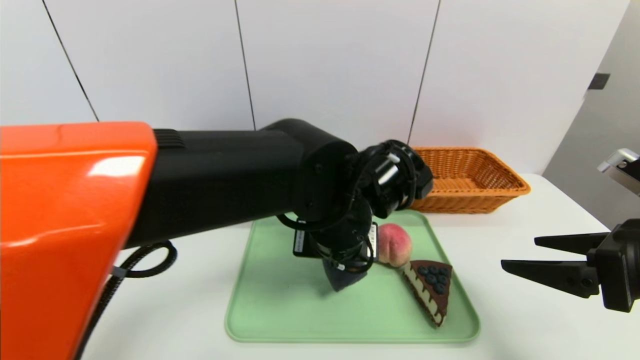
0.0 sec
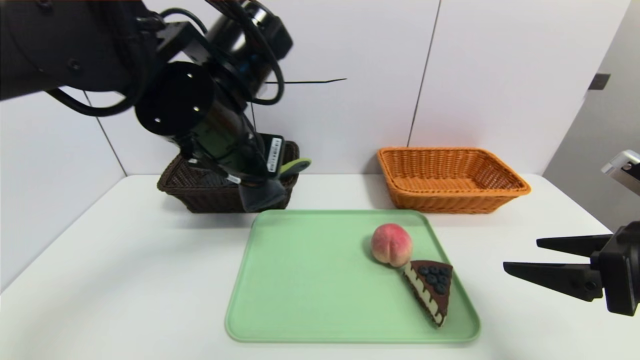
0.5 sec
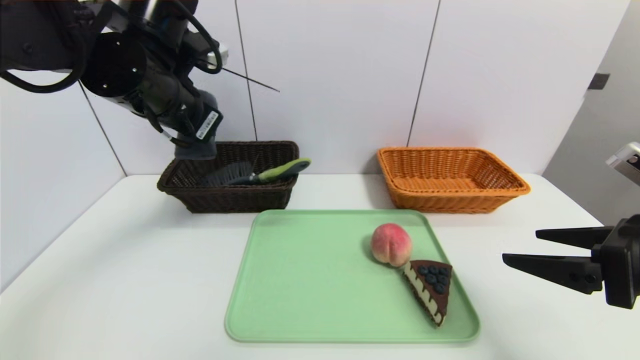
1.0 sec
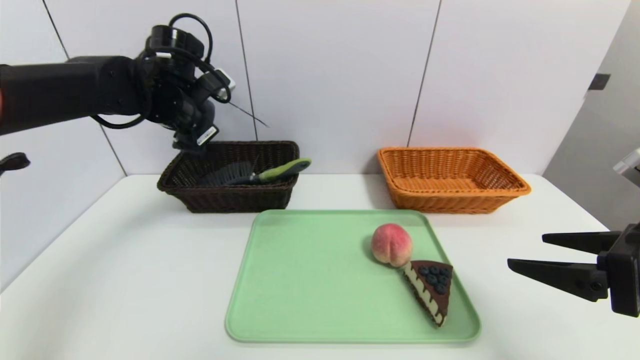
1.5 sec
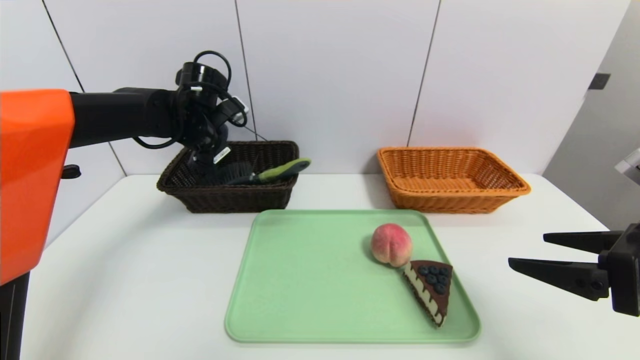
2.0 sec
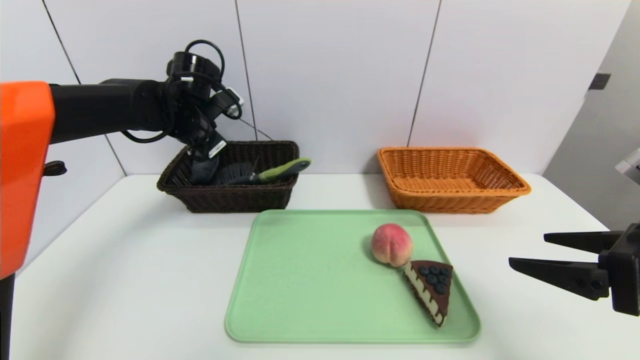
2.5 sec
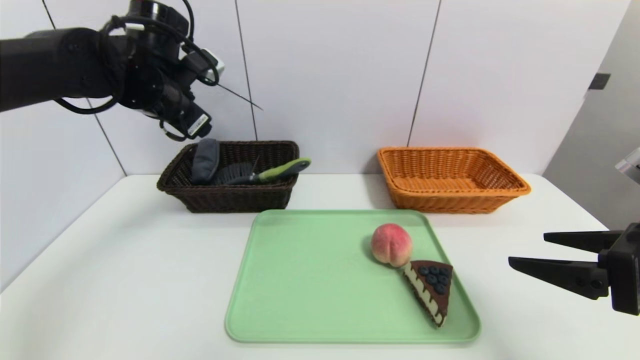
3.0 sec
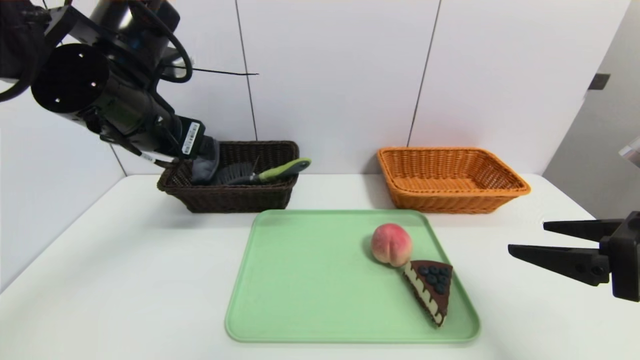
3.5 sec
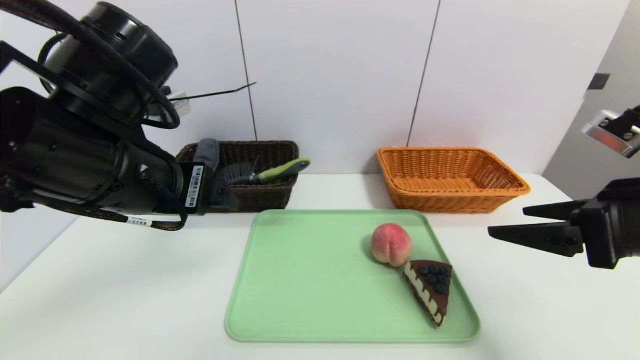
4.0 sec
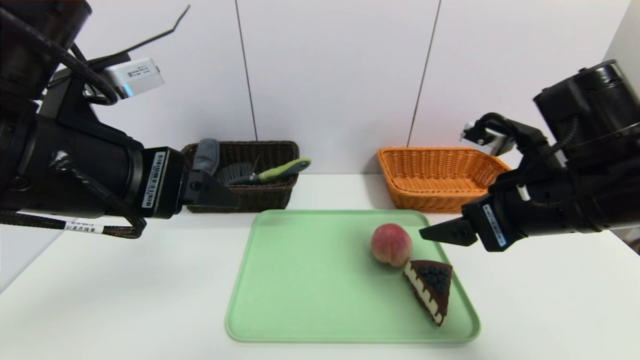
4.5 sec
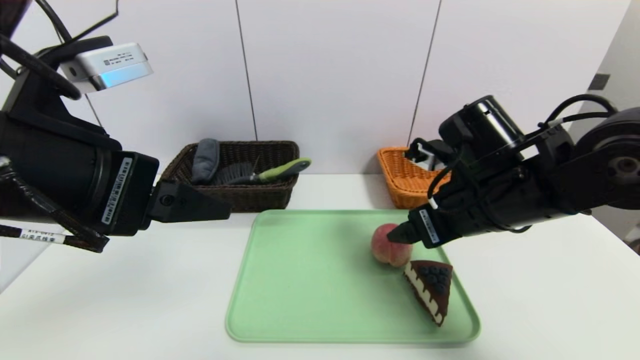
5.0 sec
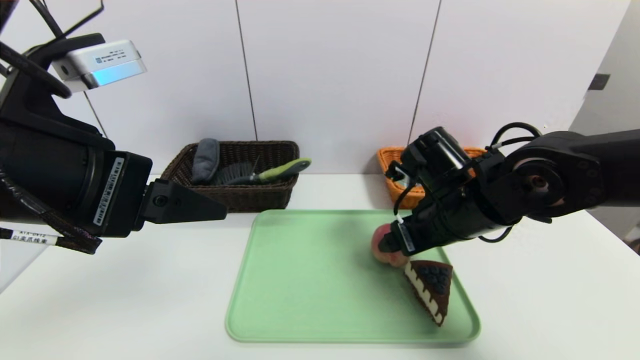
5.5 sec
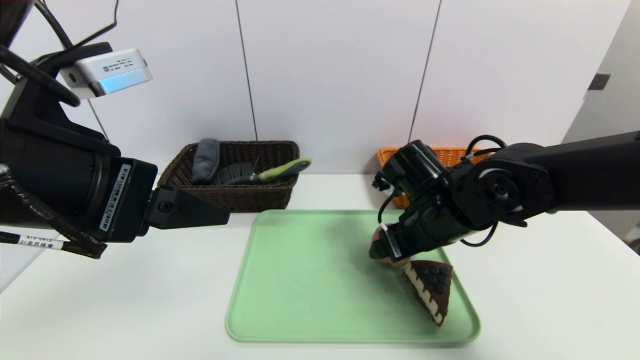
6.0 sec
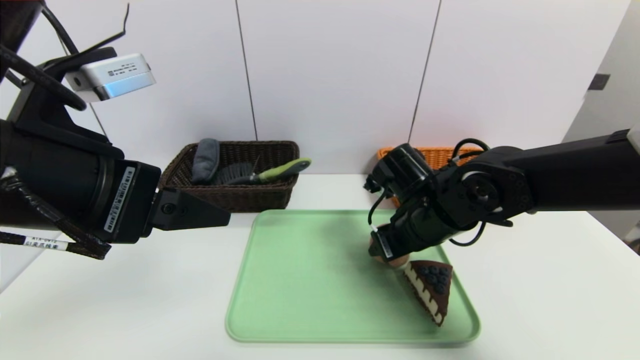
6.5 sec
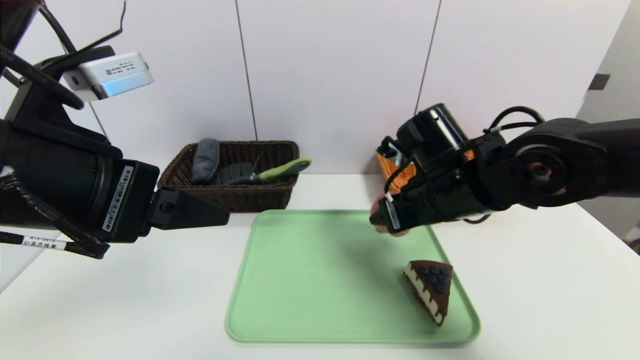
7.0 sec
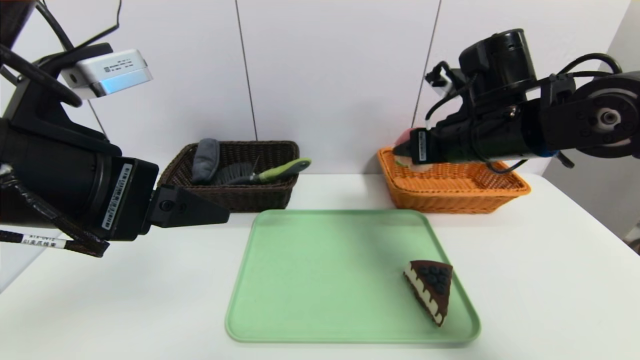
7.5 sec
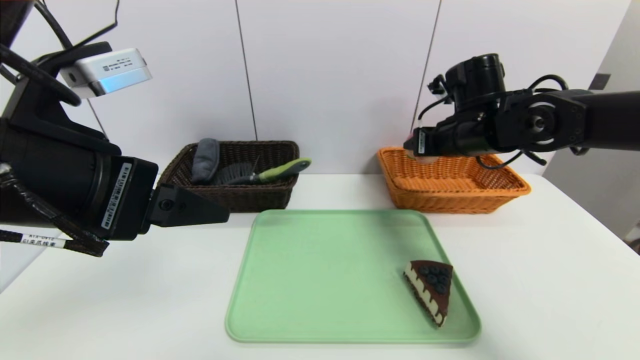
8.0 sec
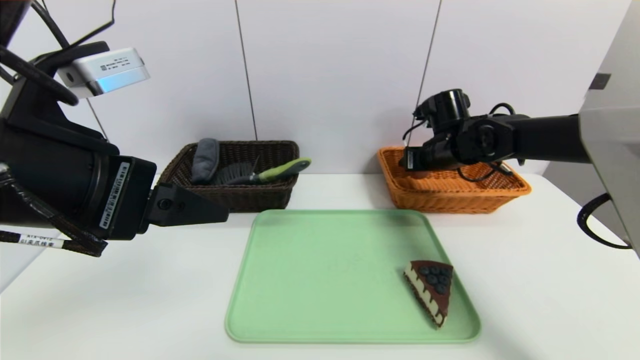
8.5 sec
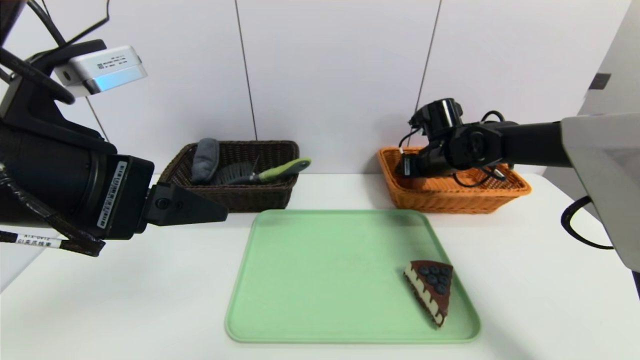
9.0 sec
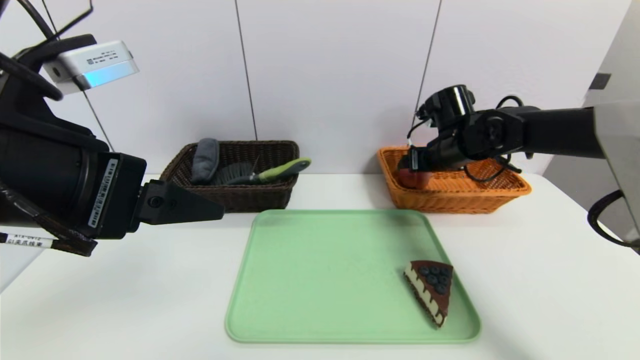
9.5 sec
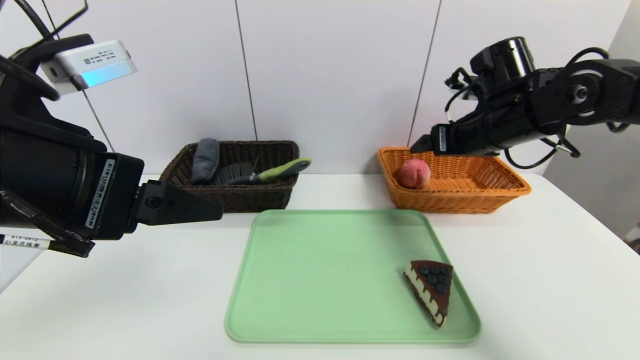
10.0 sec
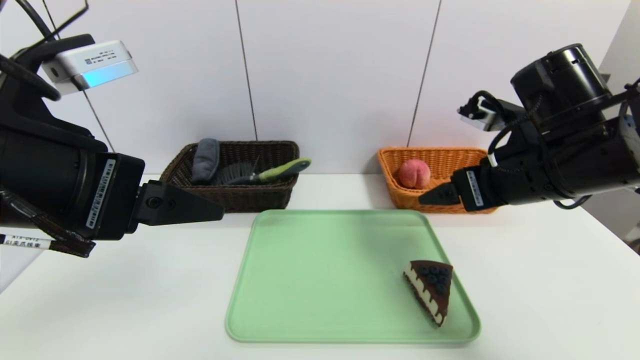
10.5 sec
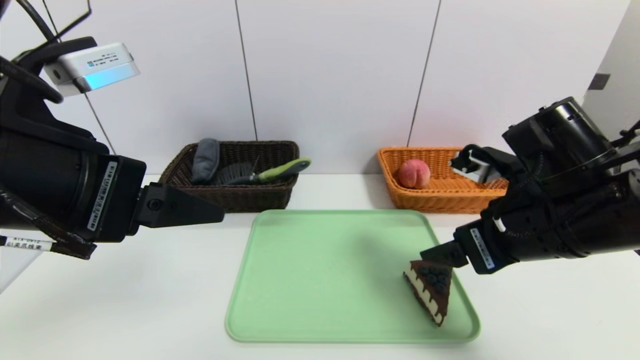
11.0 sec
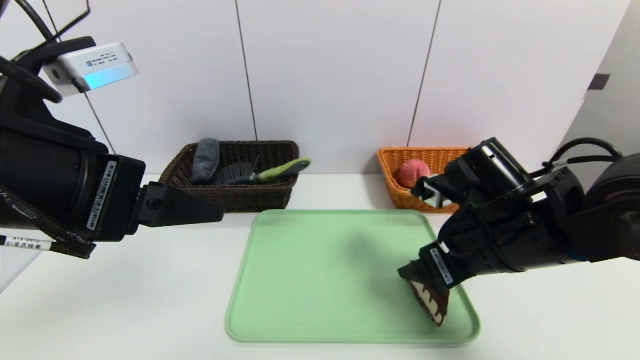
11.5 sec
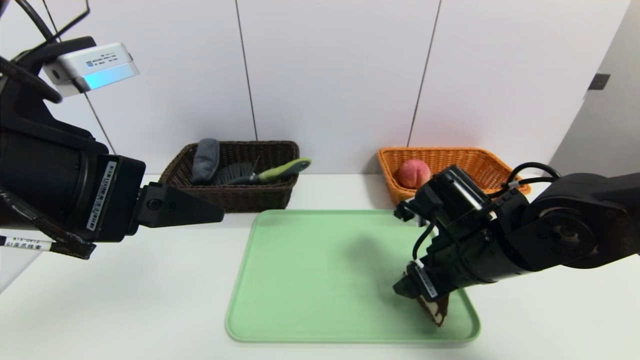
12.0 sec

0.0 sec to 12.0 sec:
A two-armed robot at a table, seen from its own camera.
Task of the whole recording: place the food in the right basket with the right gripper, and place the non food items in the left basket with the left gripper.
Step, 0.0 sec to 2.5 sec: Grasp the blue towel and put it in the left basket.
Step, 3.0 sec to 9.0 sec: Grasp the peach and put it in the right basket.
0.0 sec to 2.0 sec: The left gripper heads to the left and forward, covering approximately 30 cm.
2.0 sec to 4.0 sec: The left gripper travels backward by about 25 cm, and opens.
4.0 sec to 6.0 sec: The right gripper heads to the left, forward and downward, covering some 20 cm, while the left gripper changes place by some 5 cm.
6.0 sec to 8.0 sec: The right gripper is displaced forward, upward and to the right by about 15 cm, and closes.
8.0 sec to 10.0 sec: The right gripper opens its fingers.
10.0 sec to 12.0 sec: The right gripper moves downward, backward and to the left, about 15 cm.

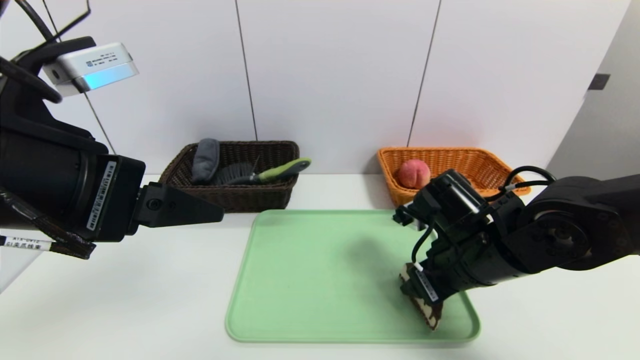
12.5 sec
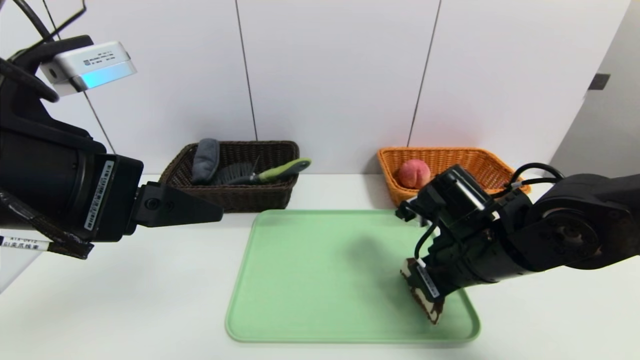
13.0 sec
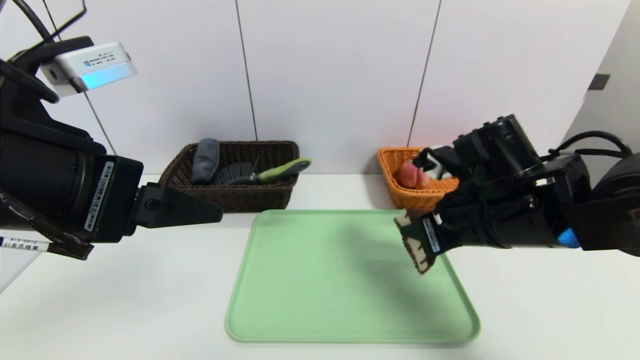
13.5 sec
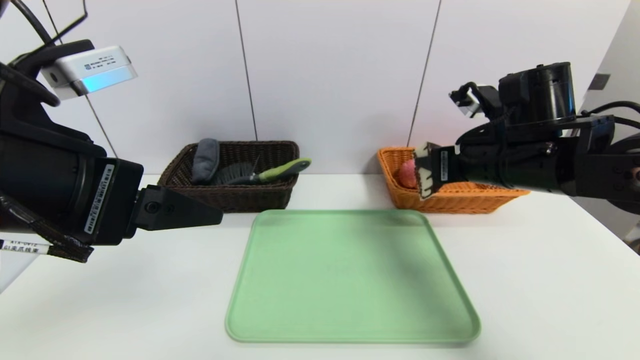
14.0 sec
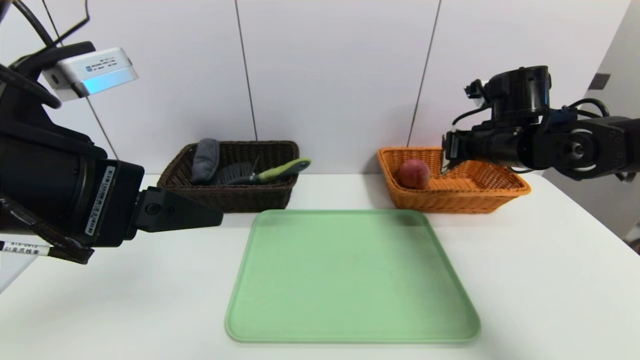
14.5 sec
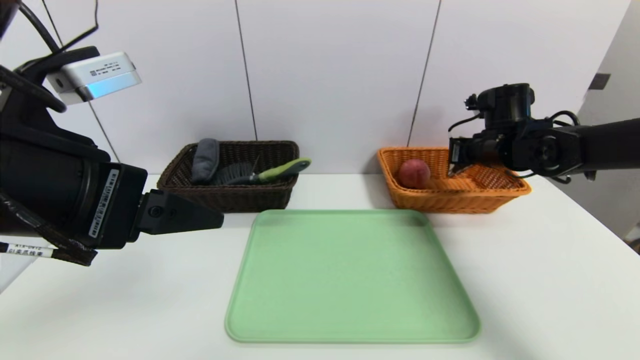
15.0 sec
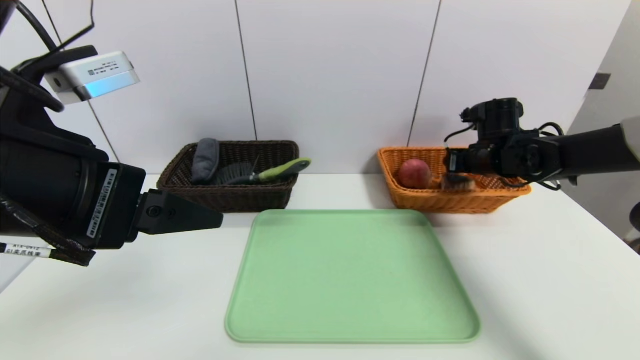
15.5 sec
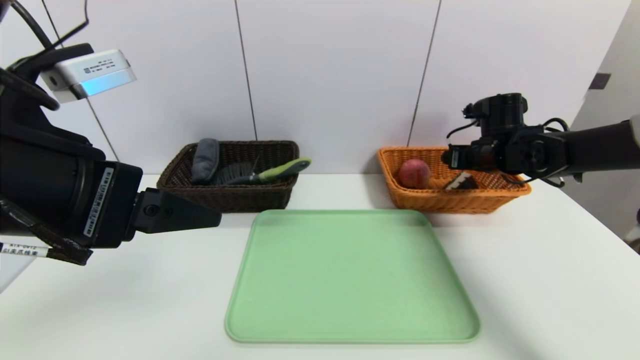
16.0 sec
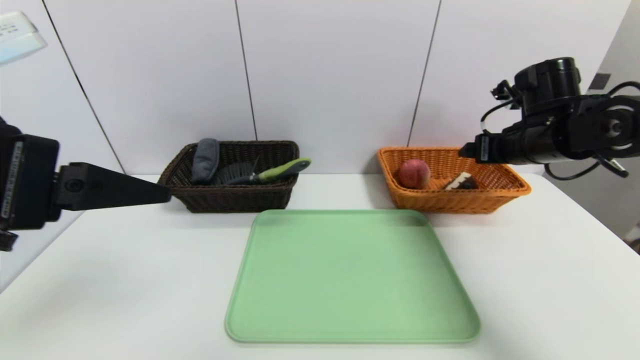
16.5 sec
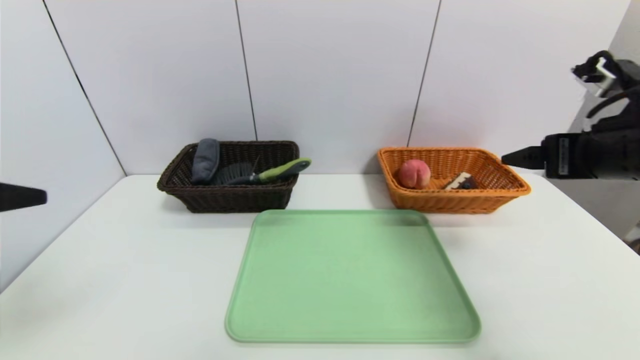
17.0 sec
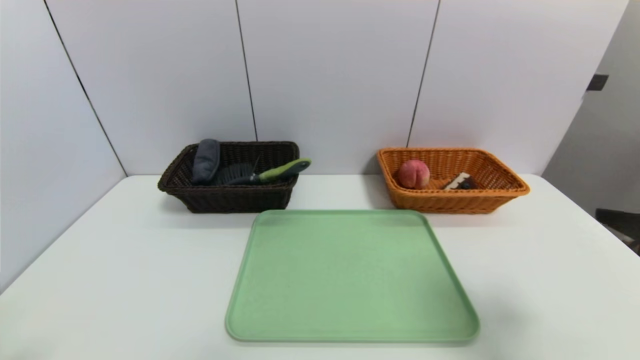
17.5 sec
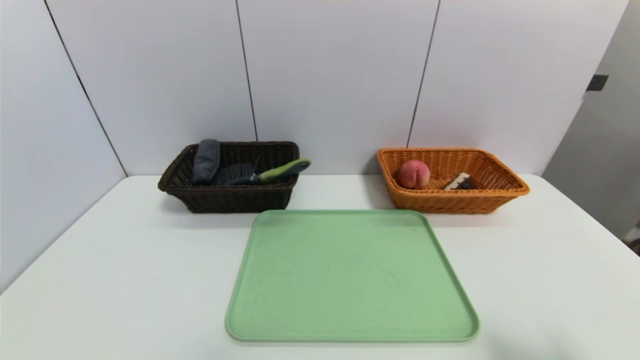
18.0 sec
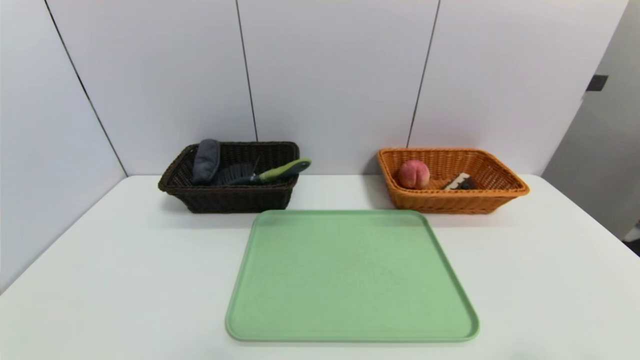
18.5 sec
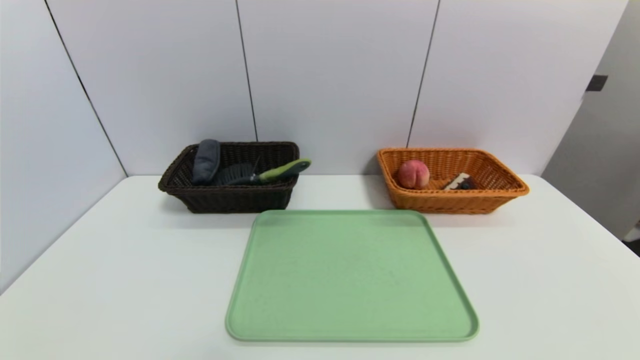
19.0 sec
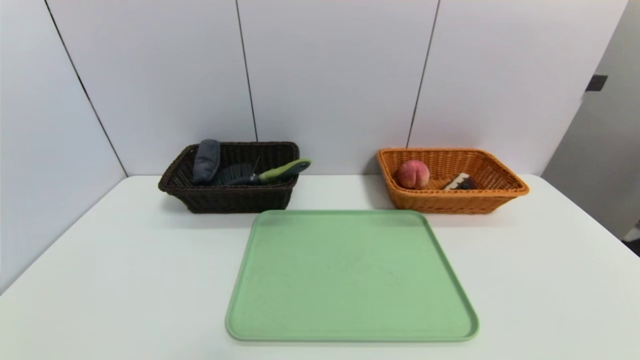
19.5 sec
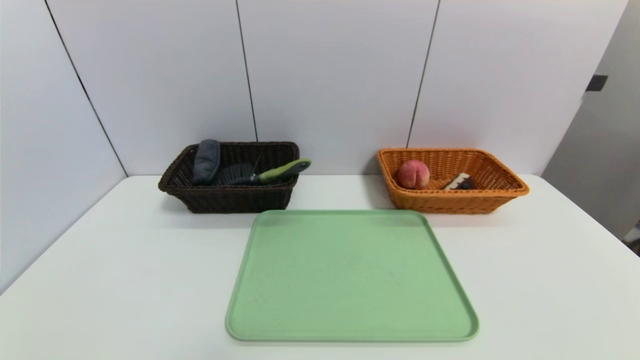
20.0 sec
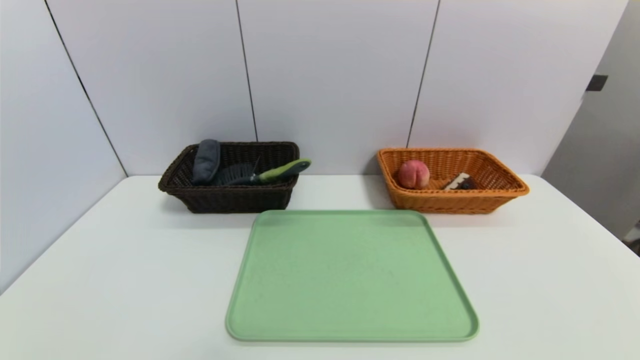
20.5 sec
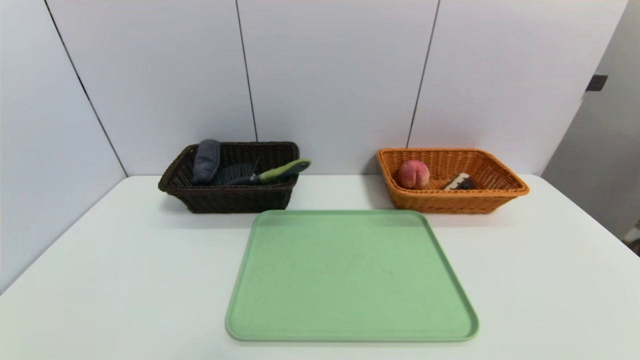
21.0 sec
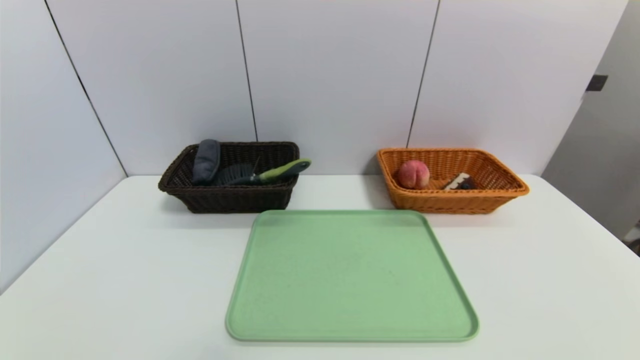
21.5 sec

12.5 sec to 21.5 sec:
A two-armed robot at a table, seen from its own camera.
Task of the whole recording: place the food in the right basket with the right gripper, and place the non food items in the left basket with the left gripper.
Step, 12.5 sec to 15.5 sec: Grasp the triangle cake and put it in the right basket.
12.5 sec to 14.5 sec: The right gripper heads forward, to the right and upward, covering about 15 cm, and closes up.
14.5 sec to 17.0 sec: The right gripper goes approximately 15 cm backward and upward, and opens up. Meanwhile the left gripper heads to the left and backward, covering some 10 cm.
17.0 sec to 19.5 sec: The right gripper goes about 30 cm backward and downward. The left gripper is displaced downward and backward by roughly 25 cm.
